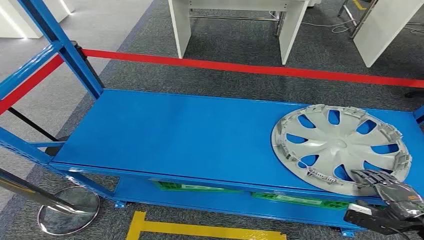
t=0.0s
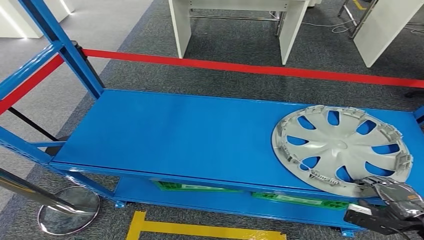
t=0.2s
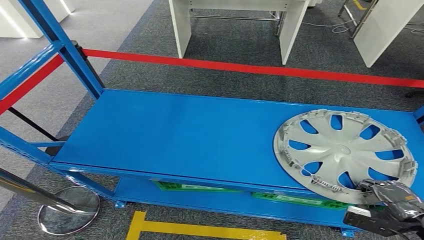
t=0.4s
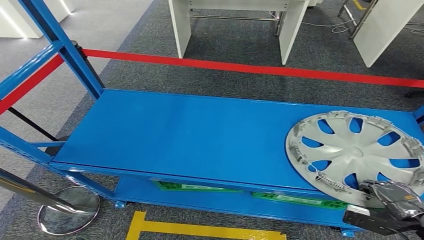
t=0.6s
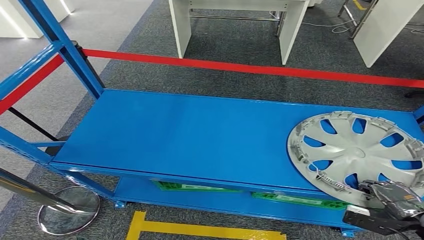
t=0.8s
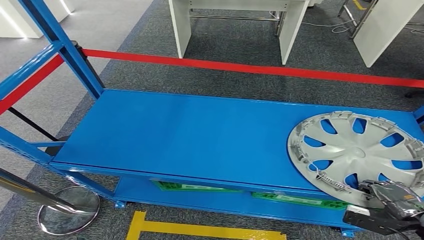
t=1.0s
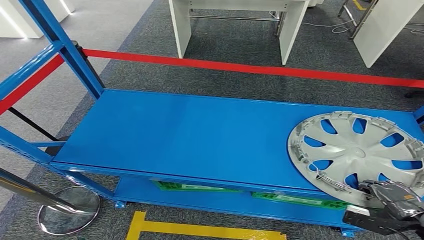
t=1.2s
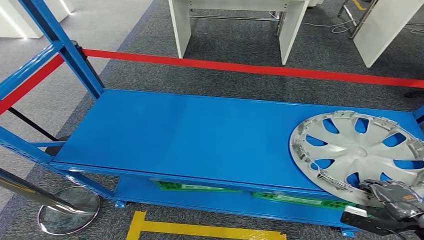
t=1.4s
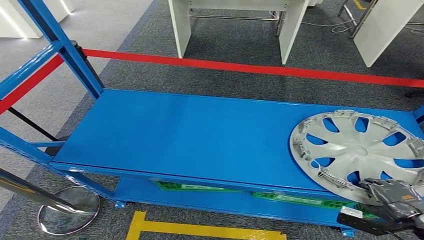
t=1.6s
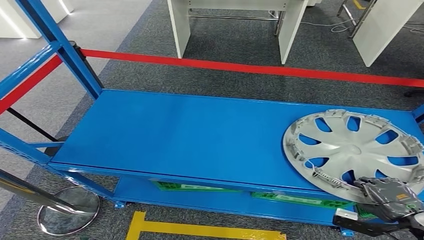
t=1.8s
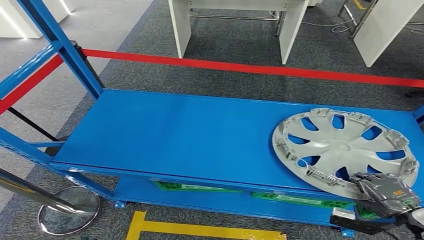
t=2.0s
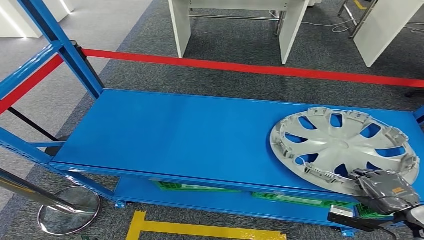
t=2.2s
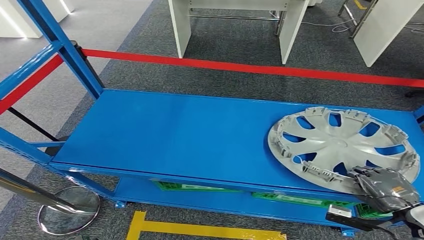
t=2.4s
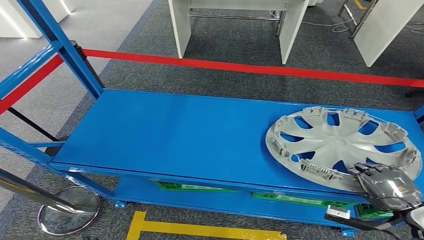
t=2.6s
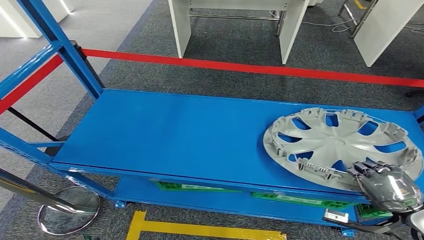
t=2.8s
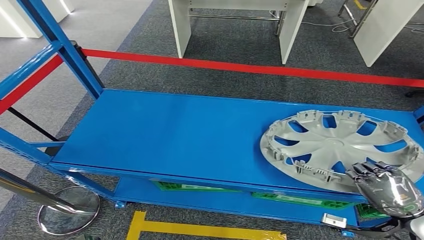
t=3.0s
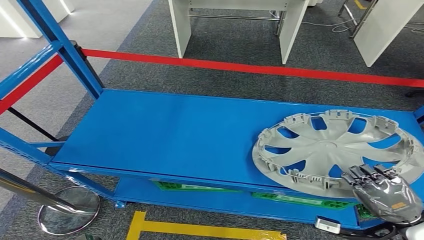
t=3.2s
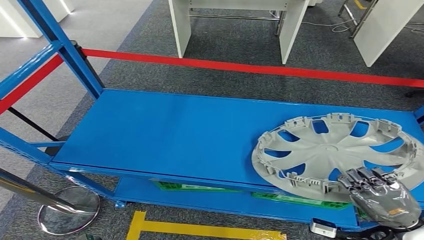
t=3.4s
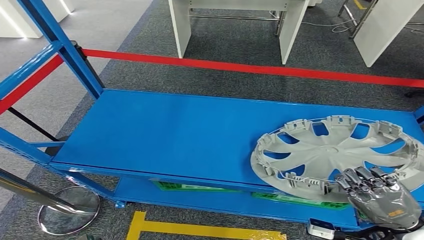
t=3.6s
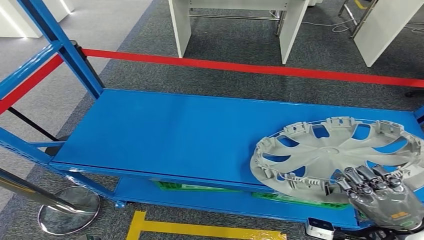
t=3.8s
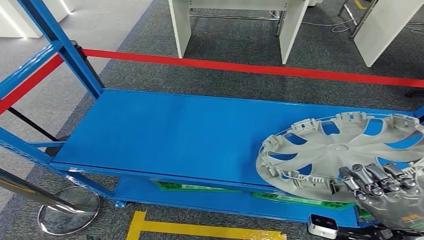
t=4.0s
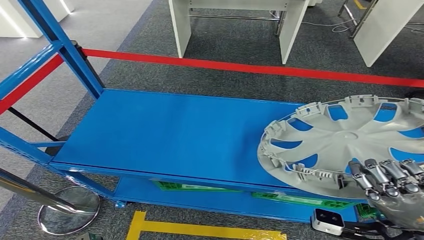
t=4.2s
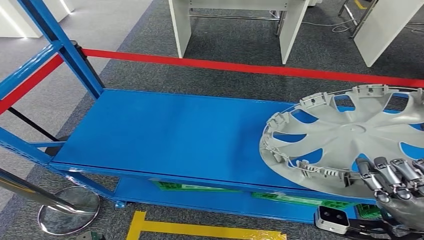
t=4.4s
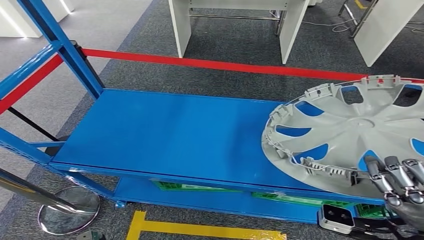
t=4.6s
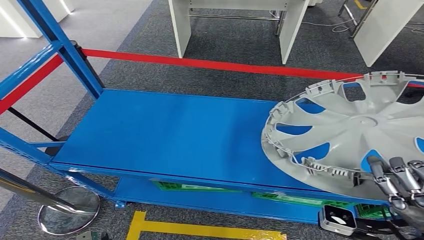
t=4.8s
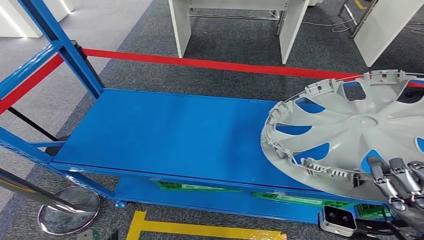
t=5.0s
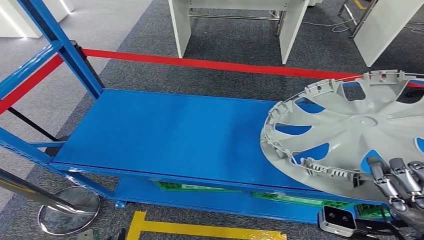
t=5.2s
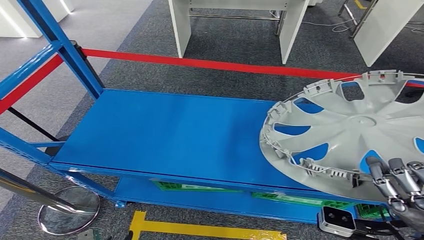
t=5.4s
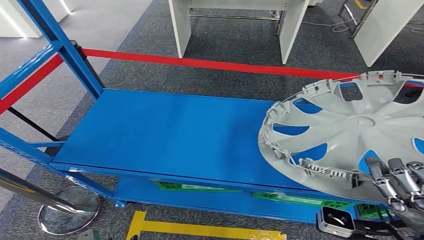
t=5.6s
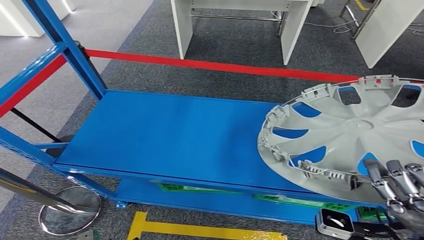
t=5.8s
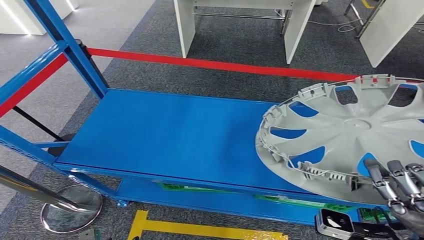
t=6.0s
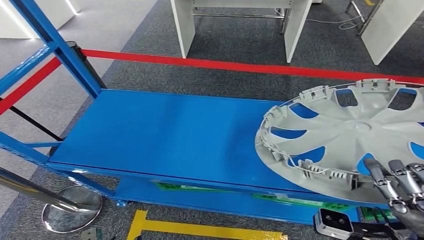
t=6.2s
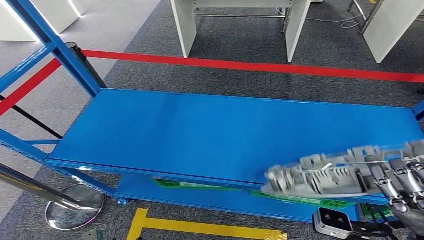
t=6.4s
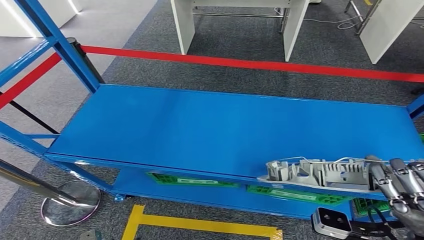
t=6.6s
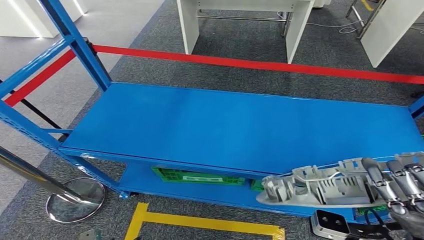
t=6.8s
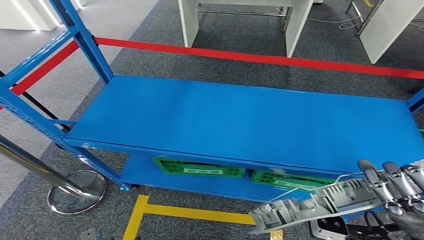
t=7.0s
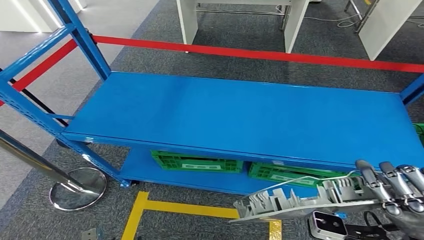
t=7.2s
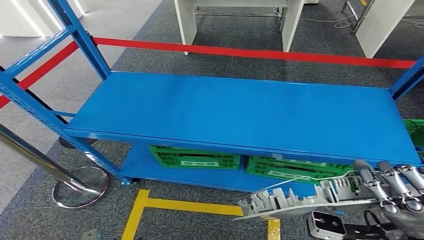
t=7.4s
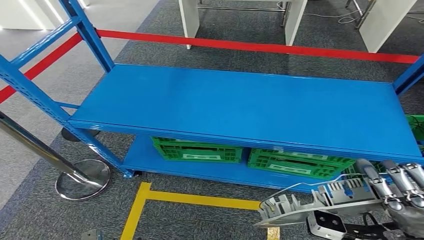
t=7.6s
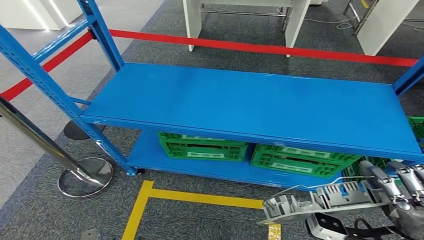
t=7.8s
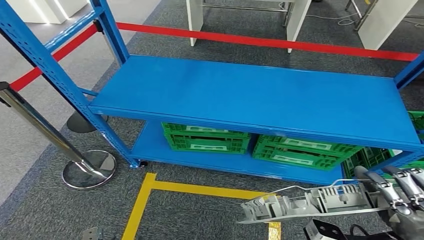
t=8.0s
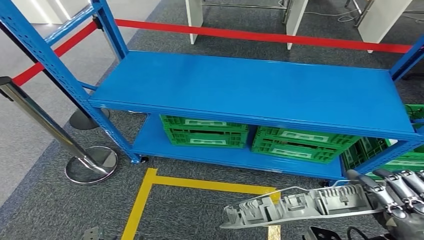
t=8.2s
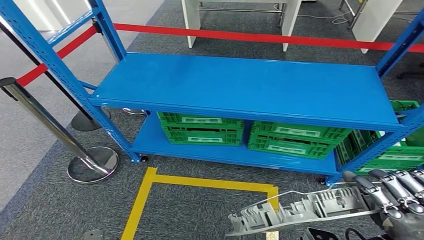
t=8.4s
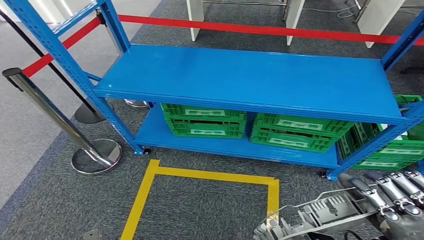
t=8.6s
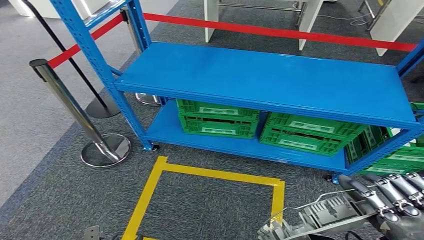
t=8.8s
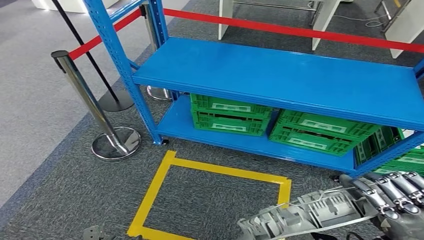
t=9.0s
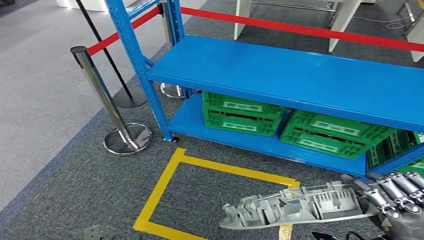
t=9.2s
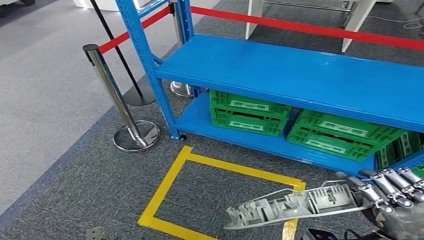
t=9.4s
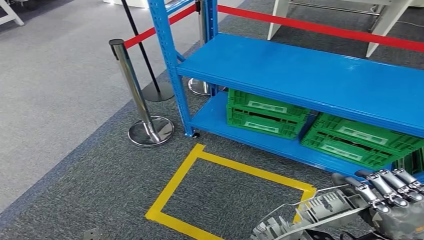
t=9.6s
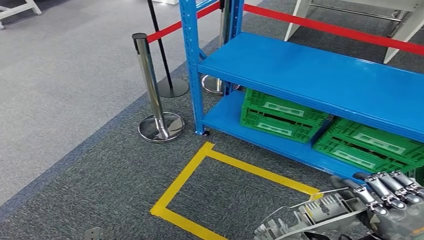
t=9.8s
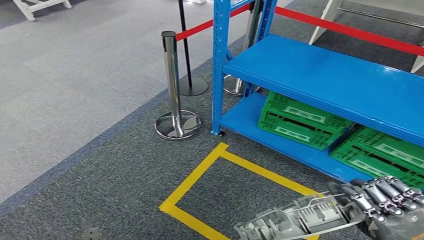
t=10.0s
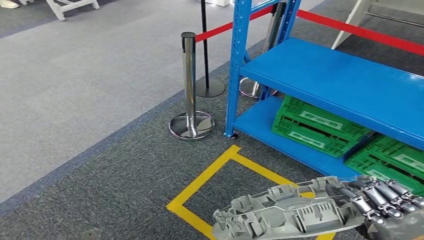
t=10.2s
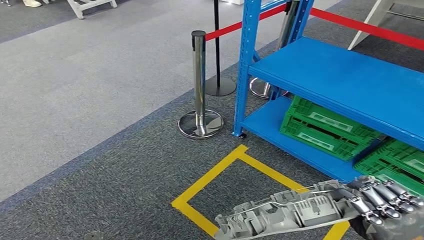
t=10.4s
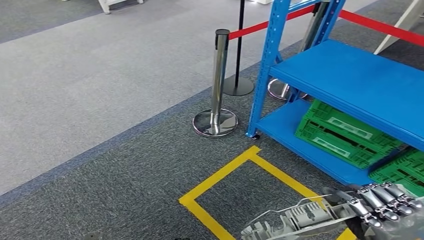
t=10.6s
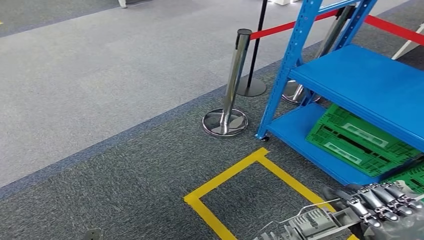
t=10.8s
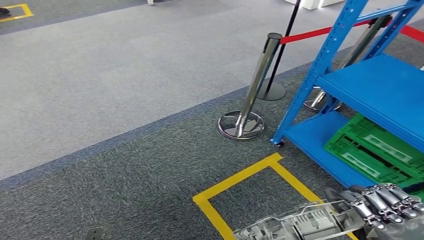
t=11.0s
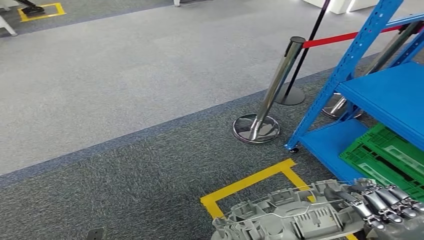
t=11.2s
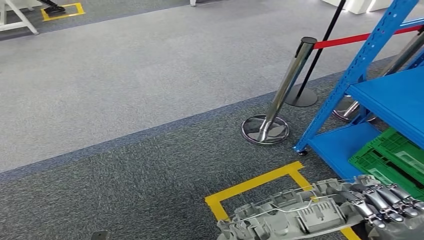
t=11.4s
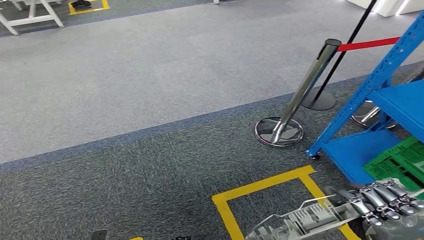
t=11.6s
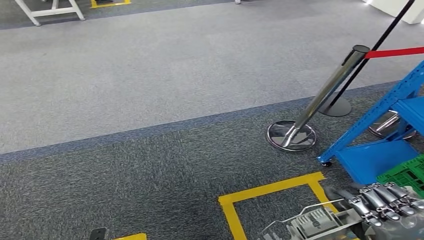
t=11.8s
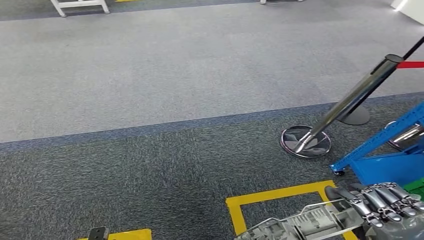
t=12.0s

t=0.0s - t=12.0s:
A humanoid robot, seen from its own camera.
Step, t=0.0s - t=5.2s: Pick up the small component from the shelf.
t=1.6s - t=3.0s: The right hand moves approximately 5 cm.
t=3.0s - t=4.4s: The right hand heads upward, covering some 10 cm.

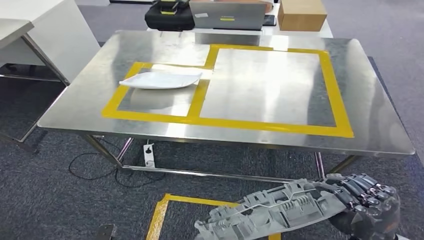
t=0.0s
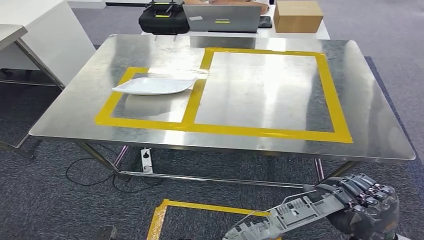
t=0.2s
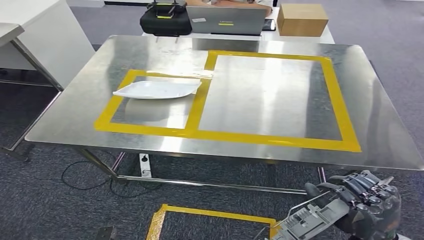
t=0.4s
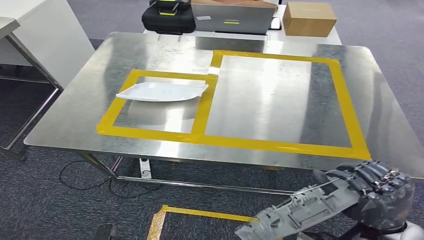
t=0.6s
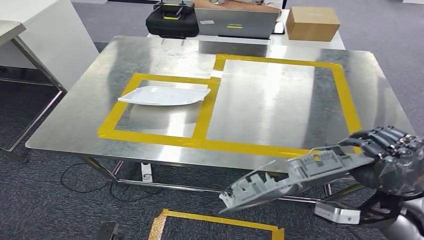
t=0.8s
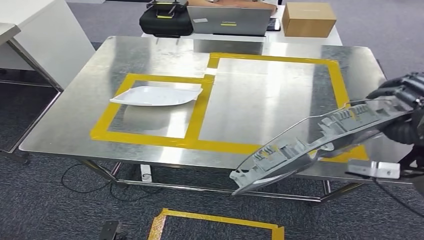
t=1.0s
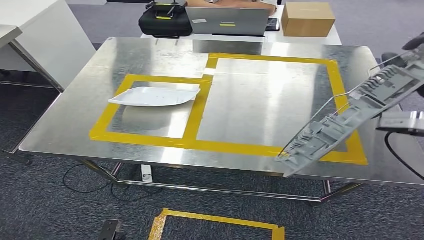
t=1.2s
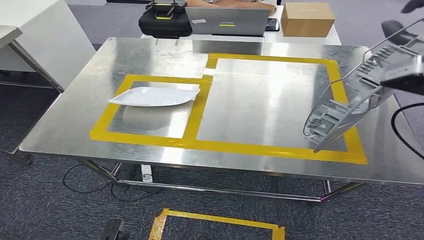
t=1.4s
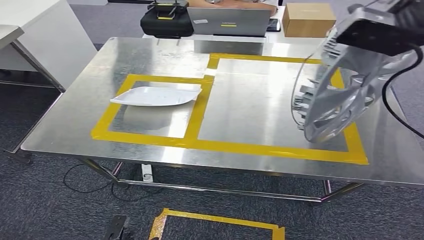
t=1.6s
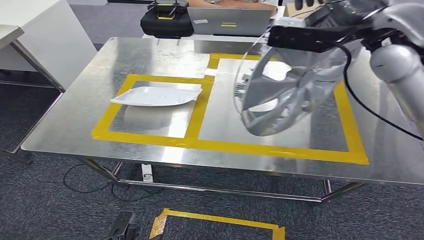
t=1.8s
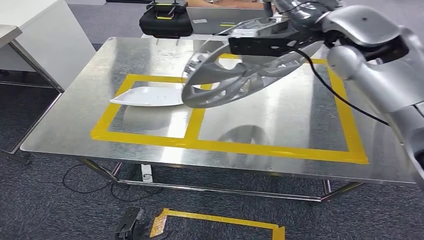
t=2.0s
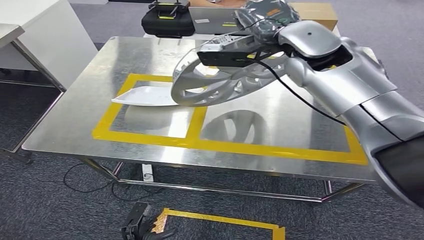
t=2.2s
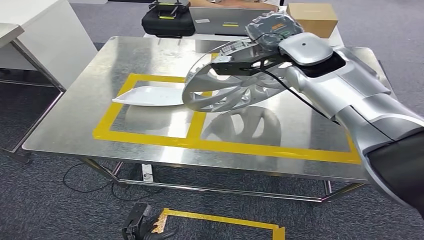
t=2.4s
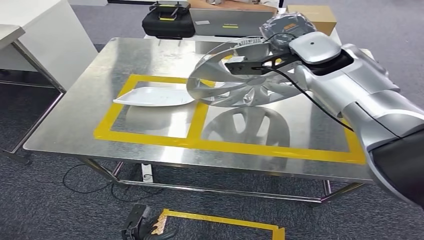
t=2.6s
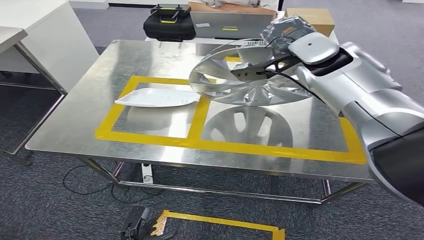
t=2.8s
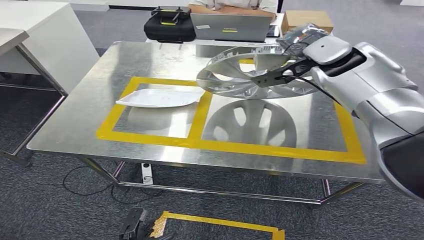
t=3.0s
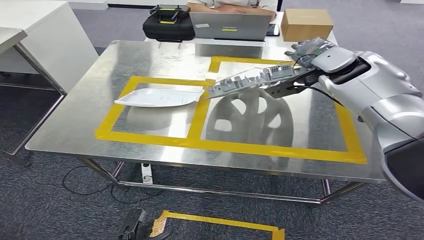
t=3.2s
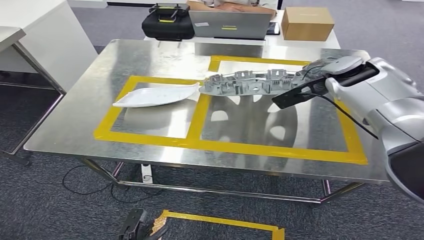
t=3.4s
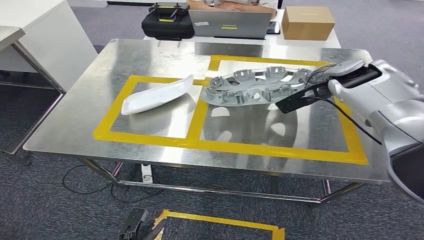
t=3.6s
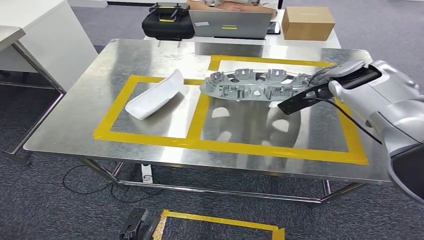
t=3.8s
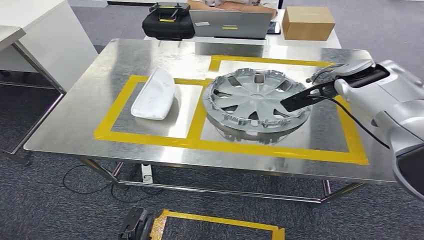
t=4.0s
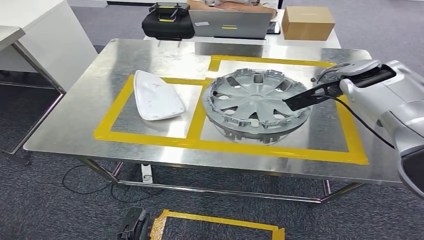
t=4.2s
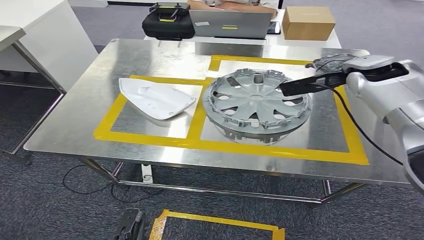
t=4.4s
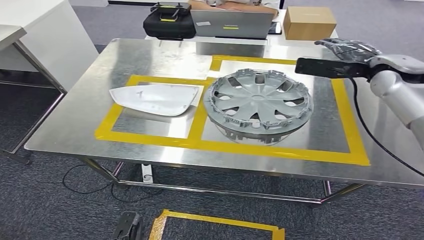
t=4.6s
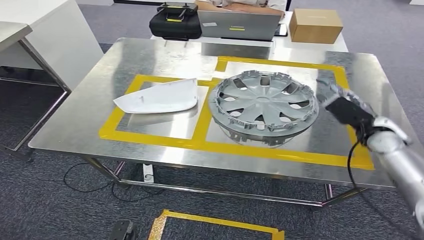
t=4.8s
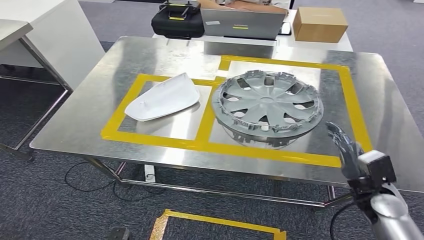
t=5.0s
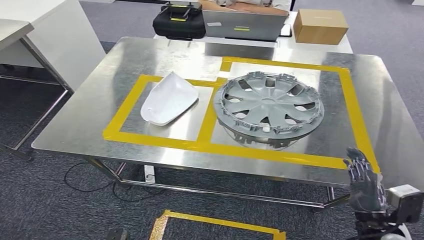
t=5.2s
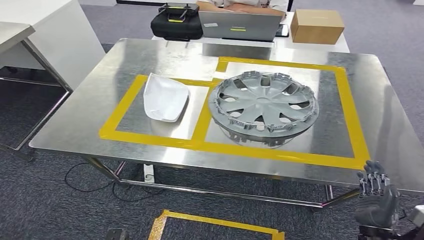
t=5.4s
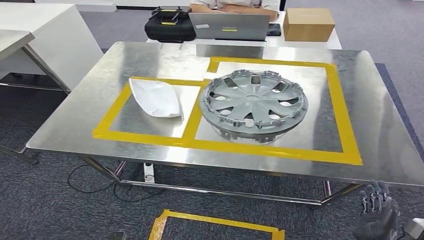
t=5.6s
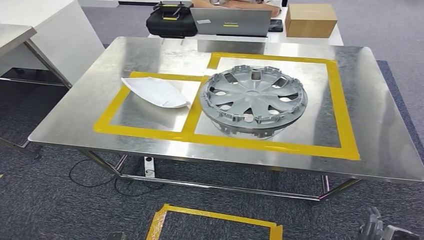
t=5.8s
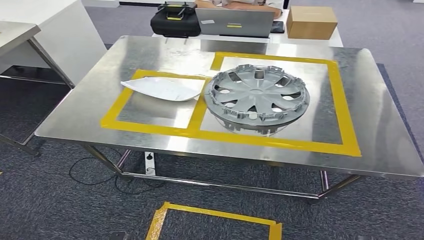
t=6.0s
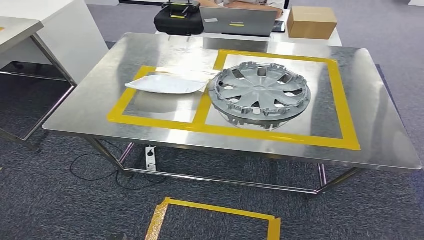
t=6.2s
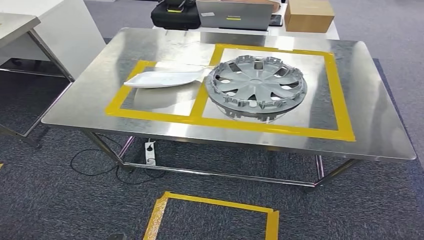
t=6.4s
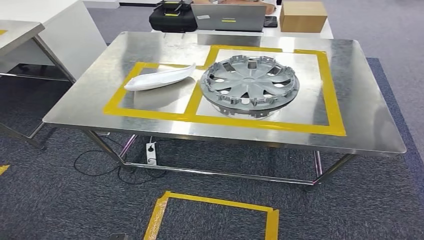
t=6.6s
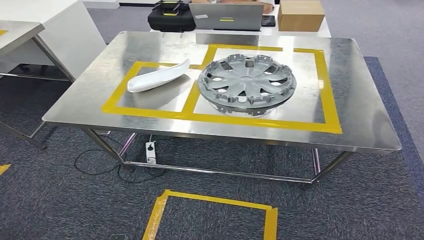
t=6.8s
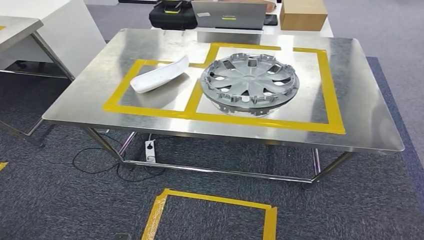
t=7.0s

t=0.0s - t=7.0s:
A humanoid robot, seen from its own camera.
Step, t=0.6s - t=5.8s: Insert the small component into the corresponding slot on the workbench.
